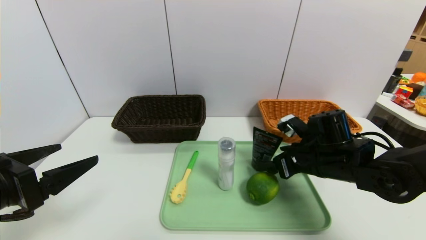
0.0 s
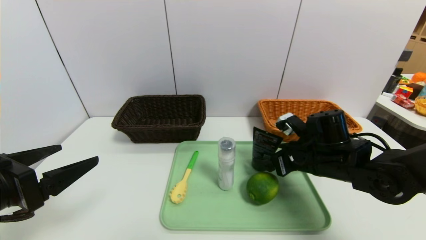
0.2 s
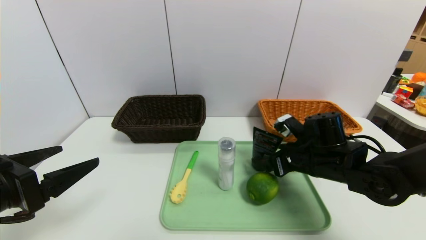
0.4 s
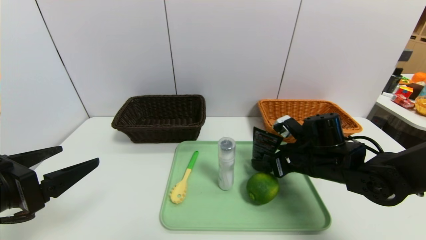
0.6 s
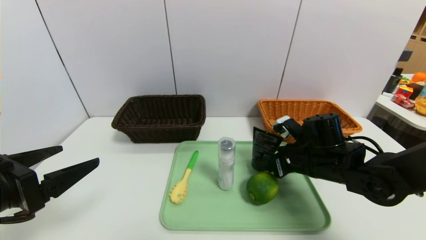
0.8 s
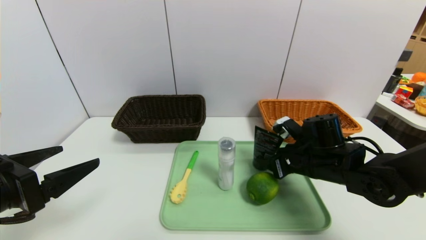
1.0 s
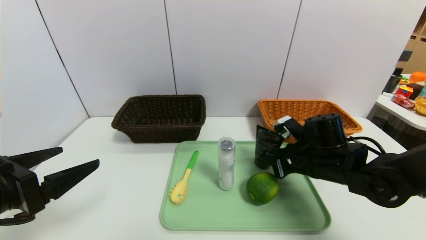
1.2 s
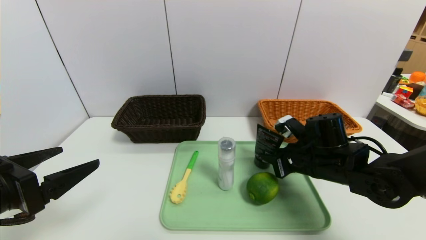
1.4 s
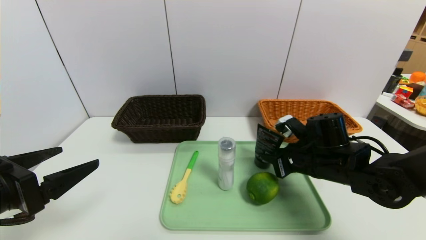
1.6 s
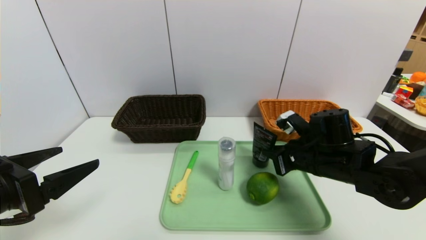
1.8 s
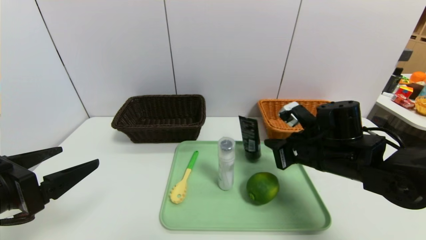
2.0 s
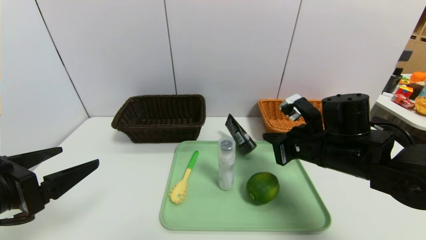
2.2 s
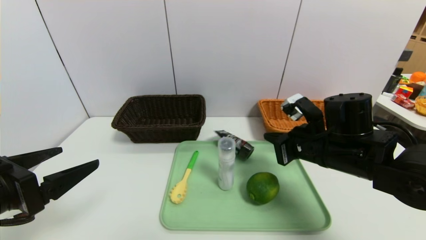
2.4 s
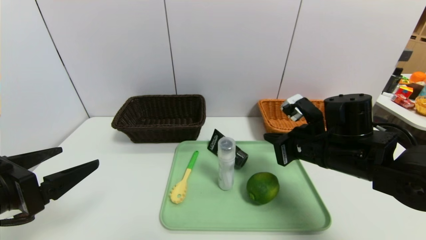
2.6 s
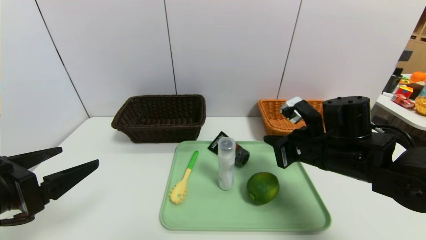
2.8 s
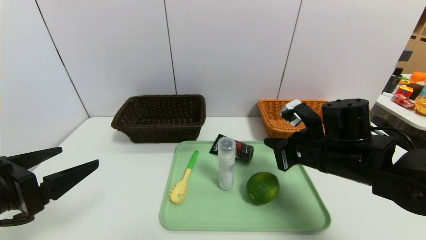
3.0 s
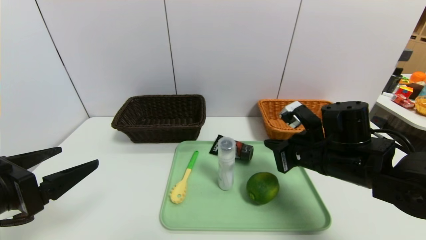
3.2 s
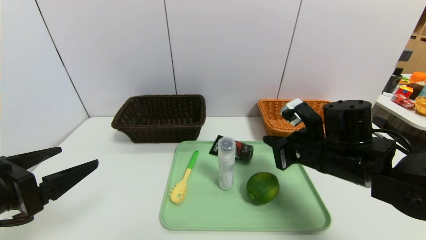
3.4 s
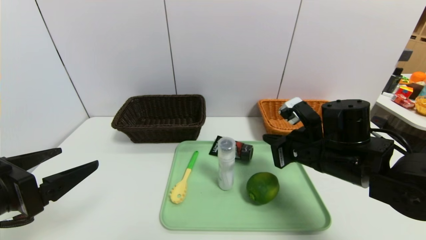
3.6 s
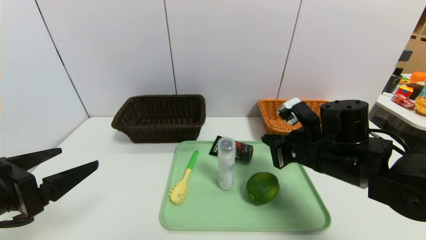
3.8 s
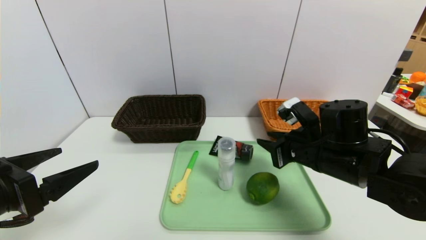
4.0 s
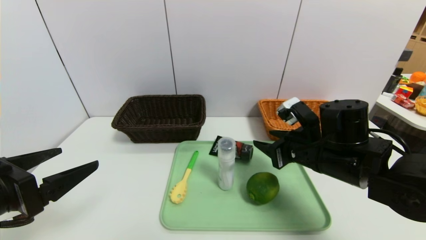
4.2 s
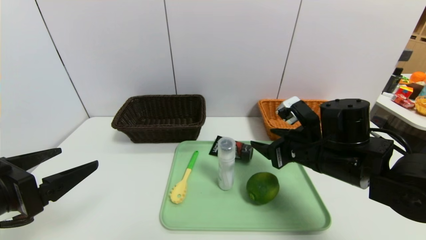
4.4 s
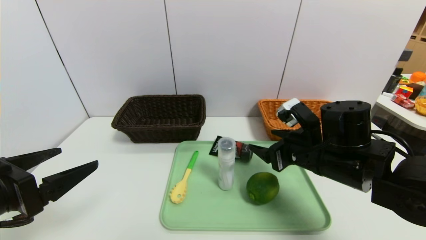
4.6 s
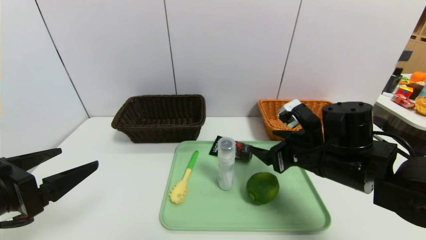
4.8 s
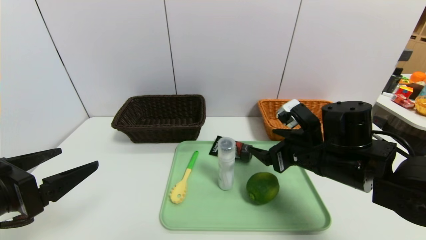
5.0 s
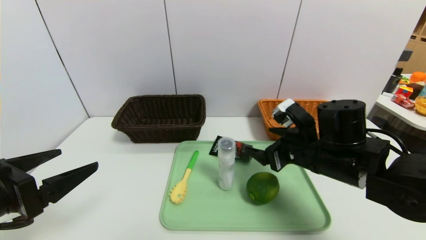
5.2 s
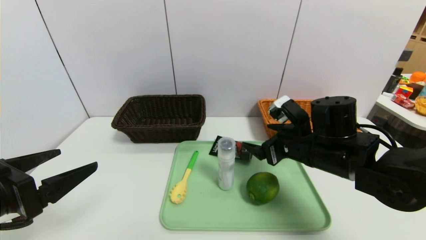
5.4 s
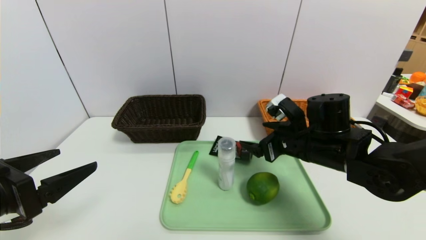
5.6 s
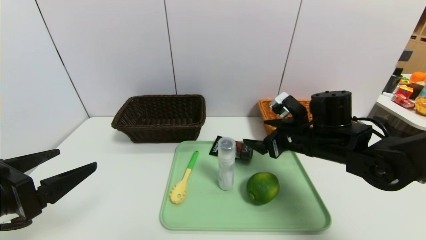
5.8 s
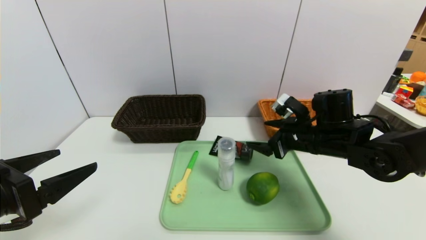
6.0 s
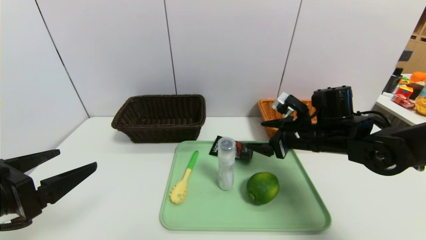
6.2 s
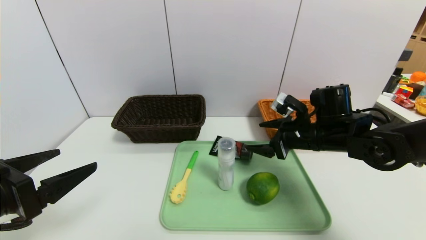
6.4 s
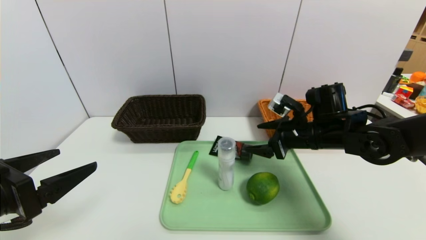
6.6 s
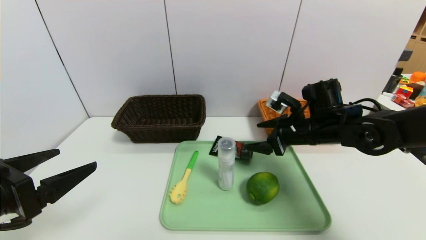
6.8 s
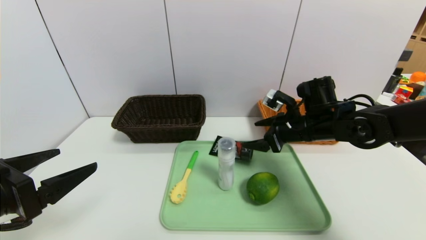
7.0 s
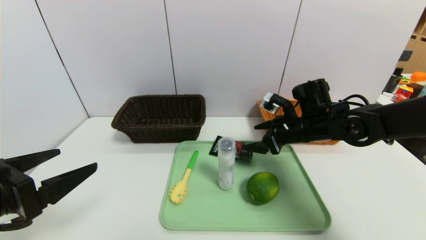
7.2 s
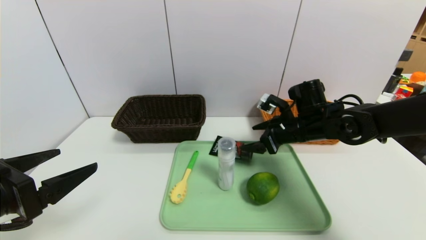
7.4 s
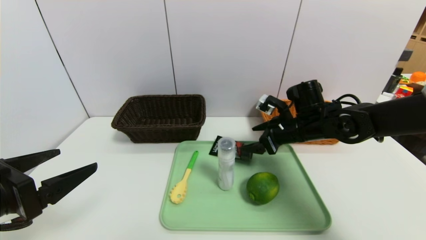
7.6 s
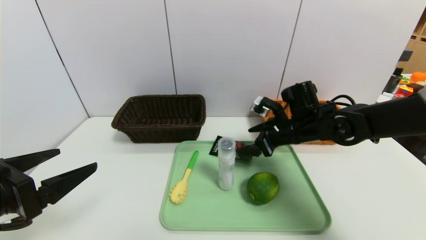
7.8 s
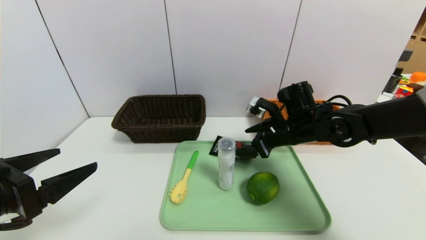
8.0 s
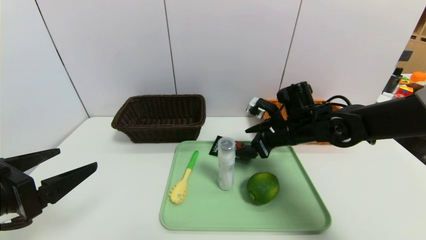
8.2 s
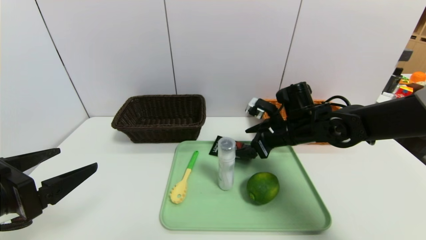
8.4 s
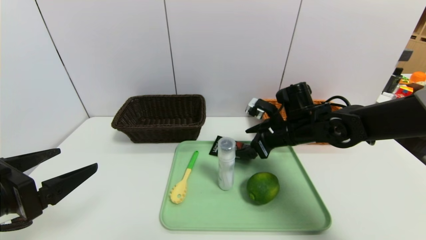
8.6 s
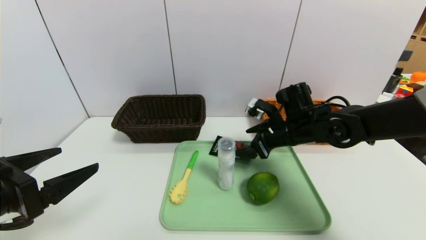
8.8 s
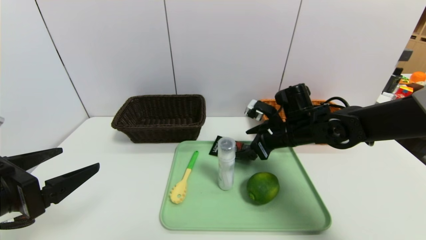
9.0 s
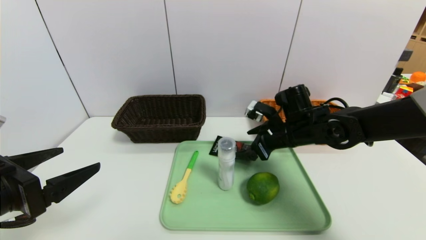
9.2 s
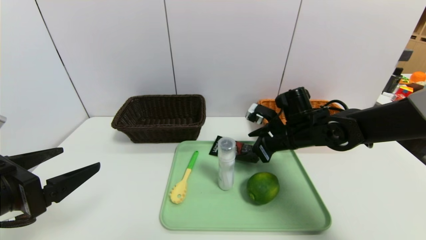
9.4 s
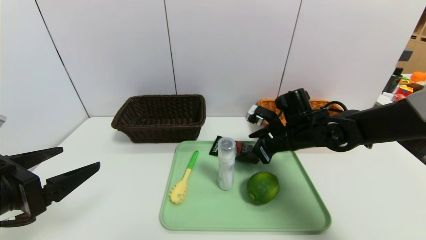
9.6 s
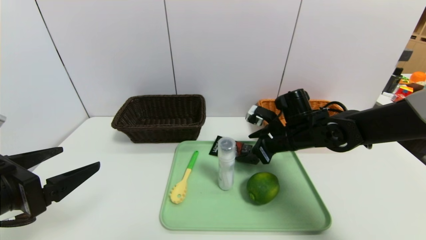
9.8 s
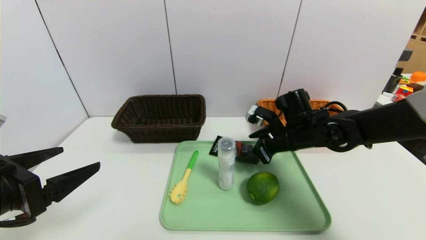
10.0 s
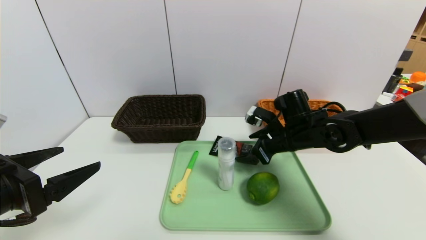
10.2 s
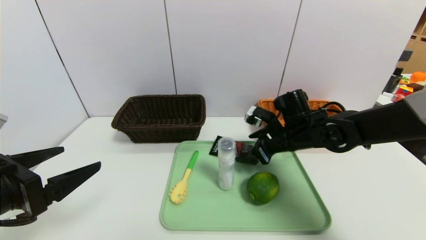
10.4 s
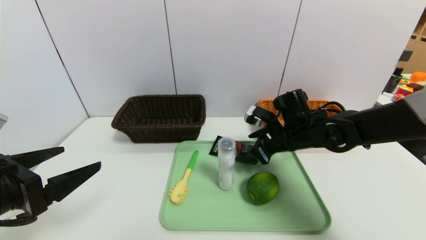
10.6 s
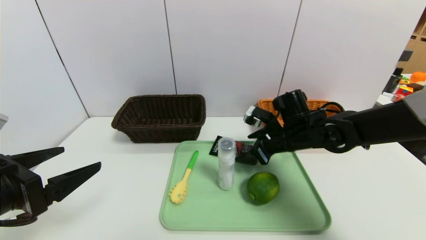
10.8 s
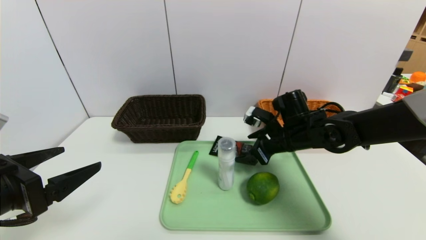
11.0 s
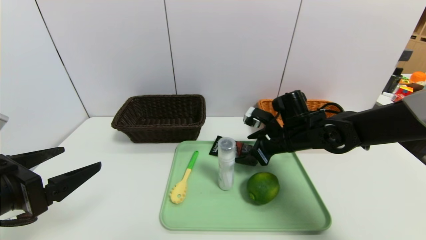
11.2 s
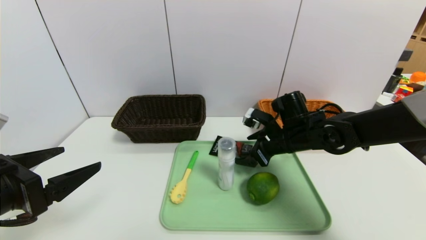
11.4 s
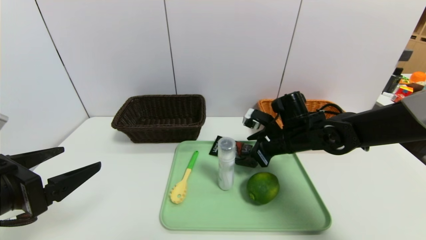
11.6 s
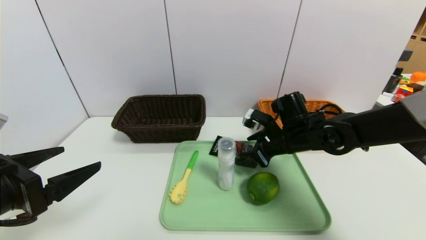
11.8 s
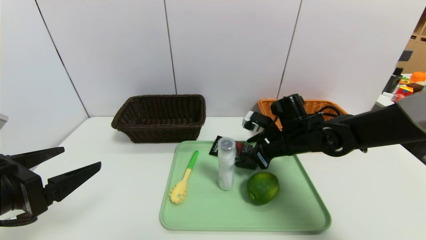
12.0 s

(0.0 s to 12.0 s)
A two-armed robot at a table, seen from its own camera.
Task of the whole recording: place the food in the right basket with the right gripper, and place the non food items in the left basket with the left gripper.
0.0 s - 1.6 s: The right gripper closes.
1.6 s - 3.0 s: The grippers stay close to where they were, moving slightly.
3.0 s - 4.4 s: The right gripper opens.
4.4 s - 6.0 s: The right gripper moves forward, about 5 cm.
6.0 s - 9.0 s: The grippers make only small movements.
9.0 s - 10.4 s: Both grippers stay put.
10.4 s - 12.0 s: The two grippers keep their place.

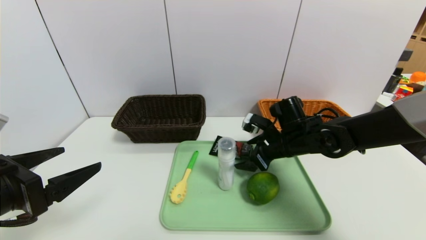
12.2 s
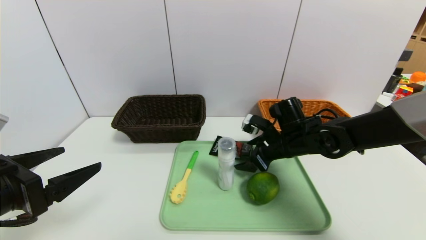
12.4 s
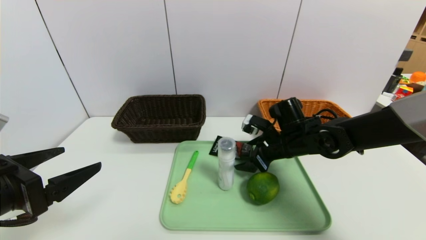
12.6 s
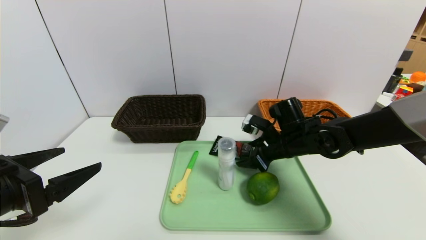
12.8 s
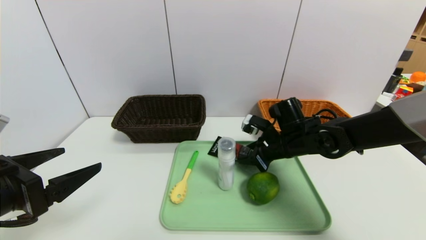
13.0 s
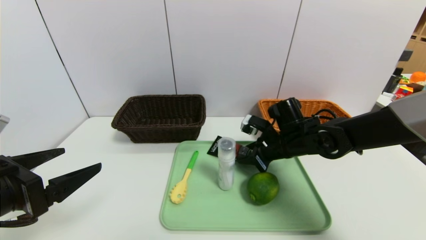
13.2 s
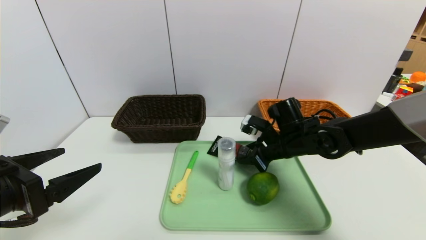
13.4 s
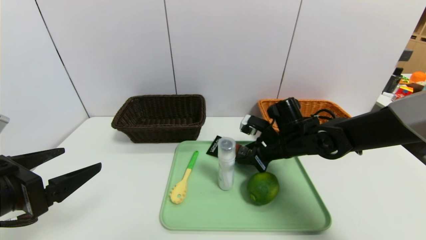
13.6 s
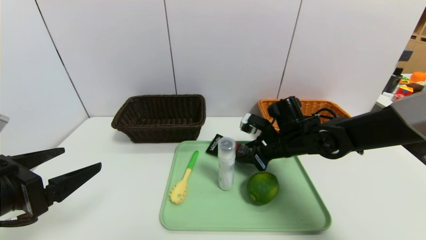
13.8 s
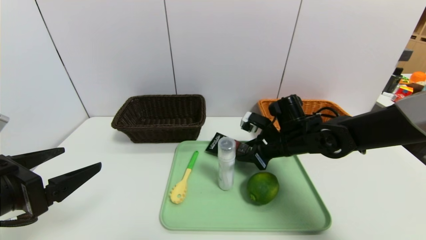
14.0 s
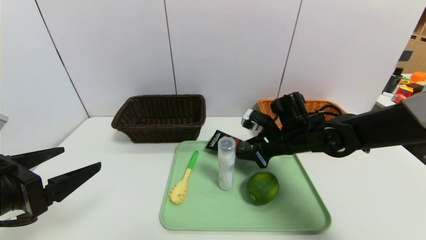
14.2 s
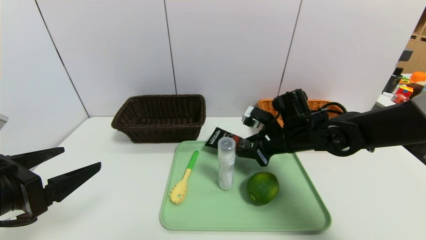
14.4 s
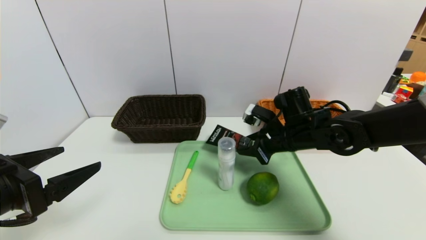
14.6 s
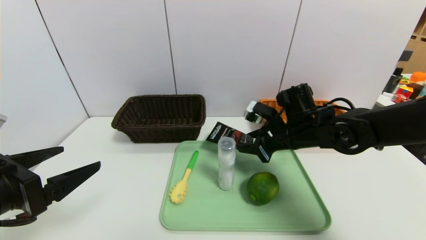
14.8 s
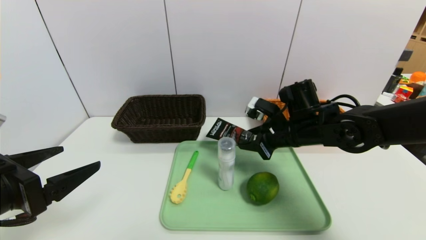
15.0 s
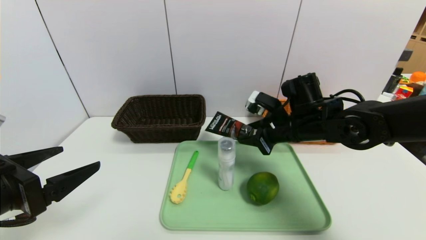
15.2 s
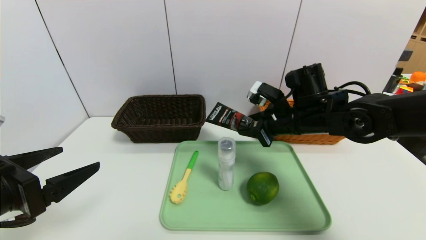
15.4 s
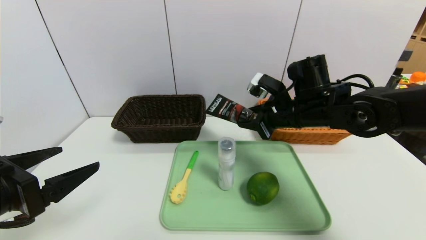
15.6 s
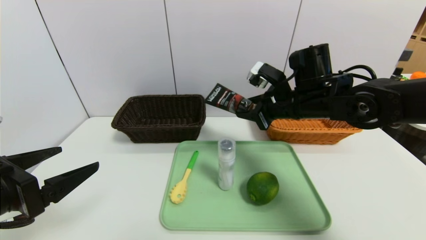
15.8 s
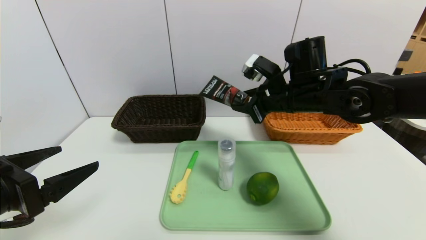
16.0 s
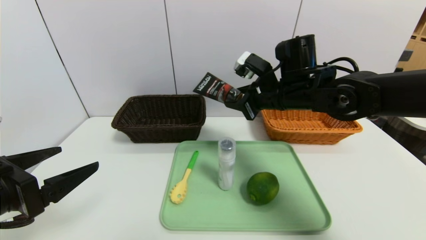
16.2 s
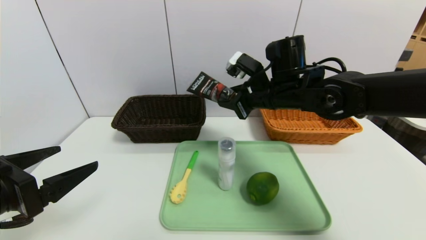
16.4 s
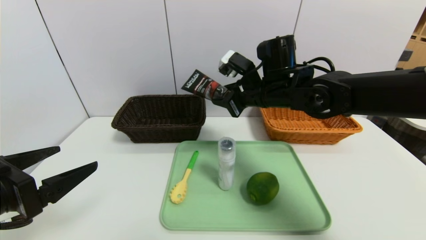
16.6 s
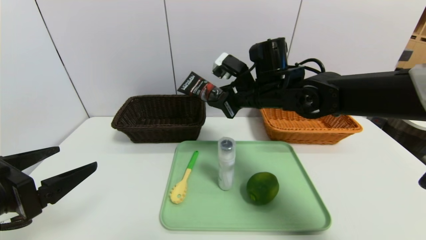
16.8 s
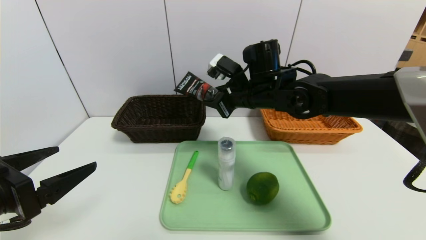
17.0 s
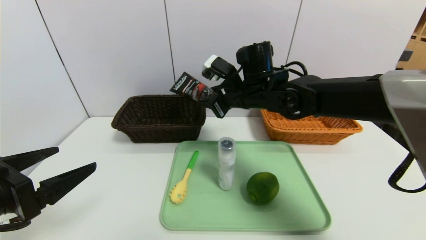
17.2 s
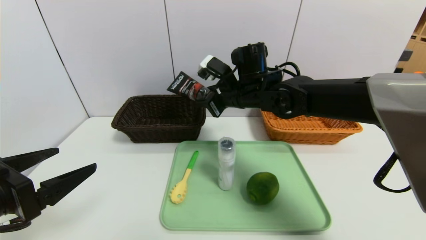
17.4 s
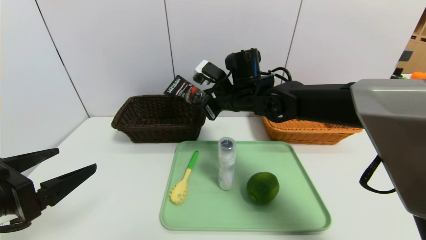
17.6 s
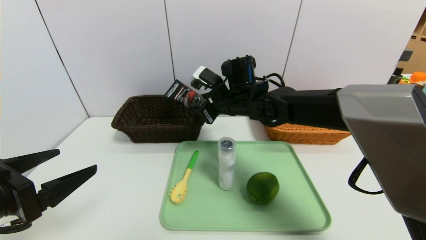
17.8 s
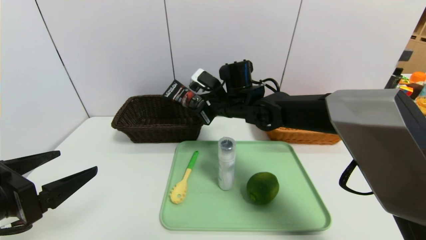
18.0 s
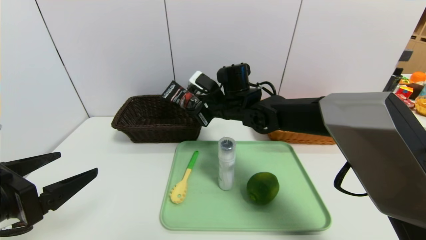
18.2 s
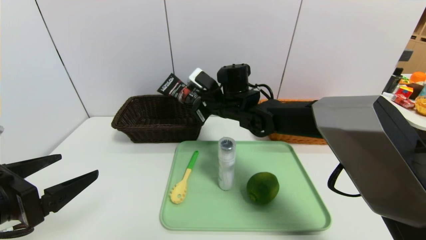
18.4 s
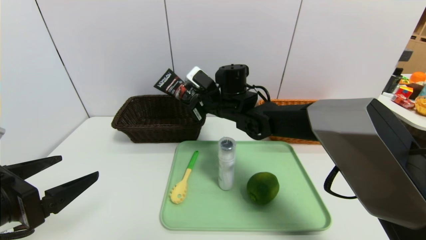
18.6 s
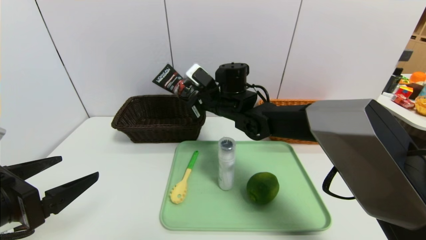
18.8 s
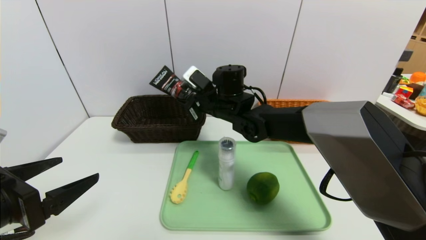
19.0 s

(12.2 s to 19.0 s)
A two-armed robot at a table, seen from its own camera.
Task of the whole recording: place the food in the right basket with the right gripper, and place the non food items in the left basket with the left gripper.
12.2 s - 13.6 s: The right gripper closes its fingers.
13.6 s - 15.0 s: The right gripper shifts by roughly 5 cm.
15.0 s - 16.2 s: The right gripper shifts some 5 cm upward.
16.2 s - 17.6 s: The right gripper moves to the left, about 10 cm.
